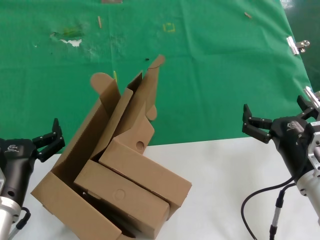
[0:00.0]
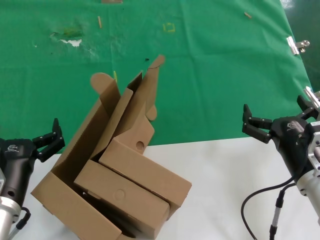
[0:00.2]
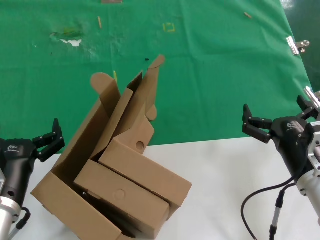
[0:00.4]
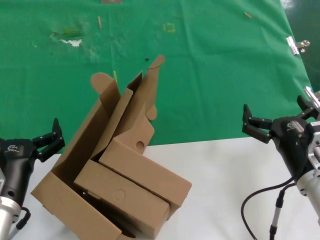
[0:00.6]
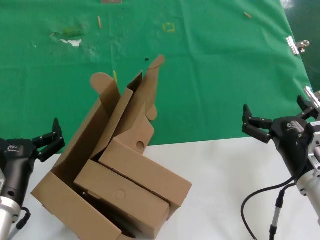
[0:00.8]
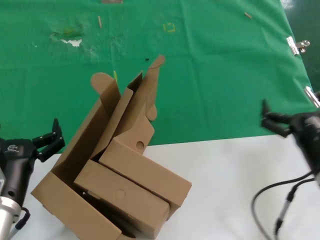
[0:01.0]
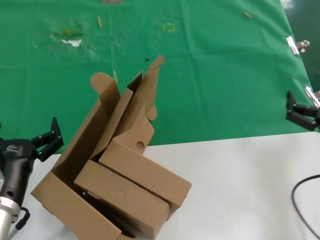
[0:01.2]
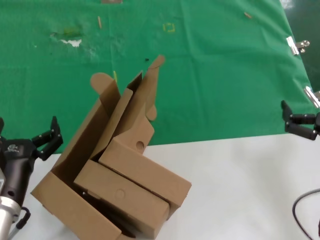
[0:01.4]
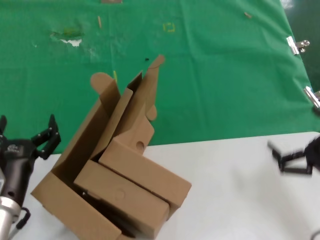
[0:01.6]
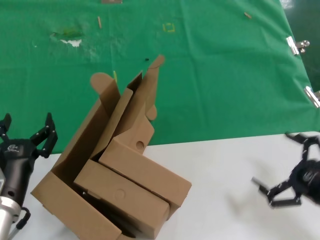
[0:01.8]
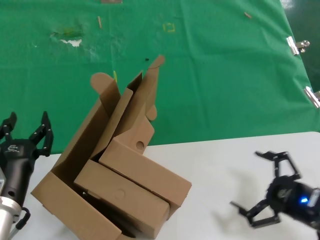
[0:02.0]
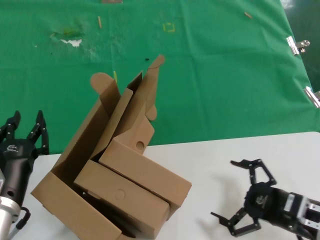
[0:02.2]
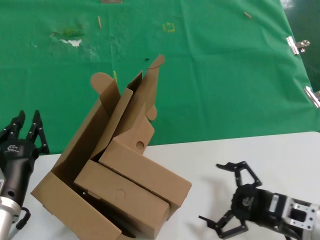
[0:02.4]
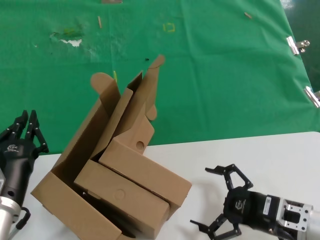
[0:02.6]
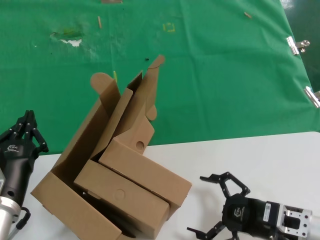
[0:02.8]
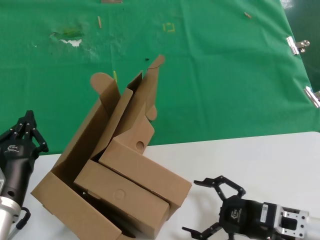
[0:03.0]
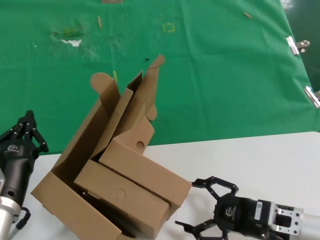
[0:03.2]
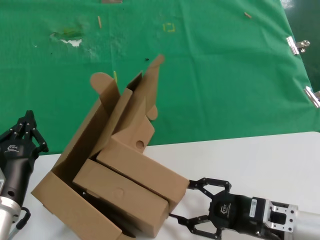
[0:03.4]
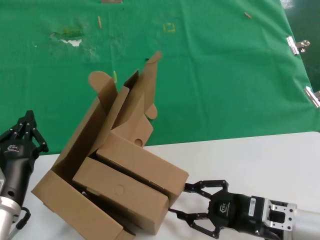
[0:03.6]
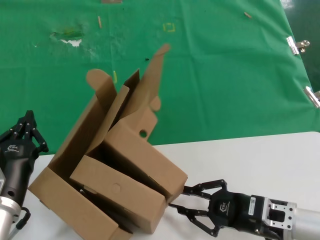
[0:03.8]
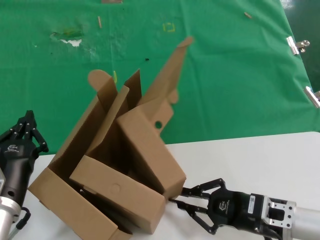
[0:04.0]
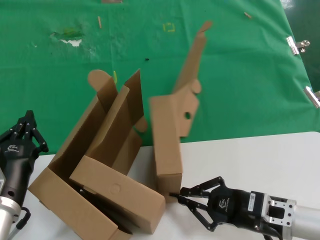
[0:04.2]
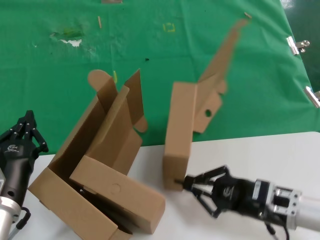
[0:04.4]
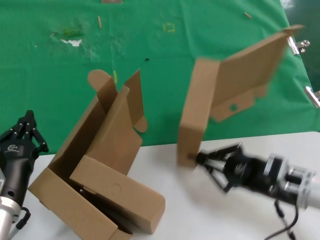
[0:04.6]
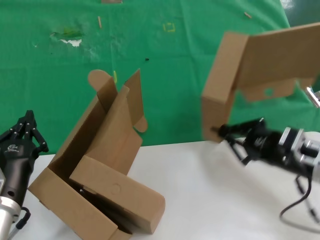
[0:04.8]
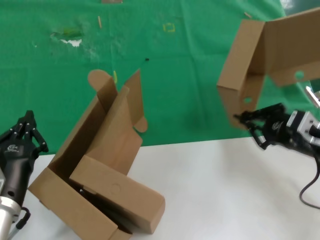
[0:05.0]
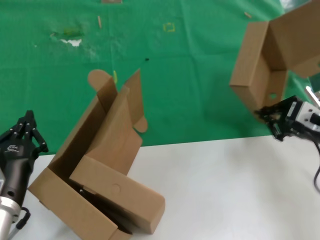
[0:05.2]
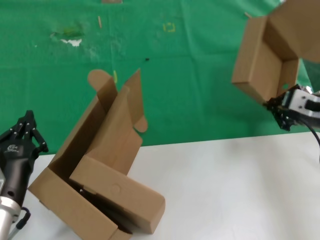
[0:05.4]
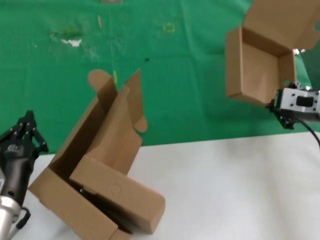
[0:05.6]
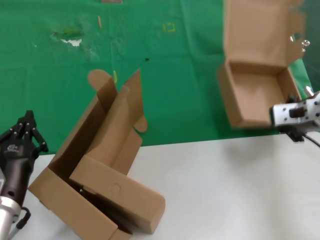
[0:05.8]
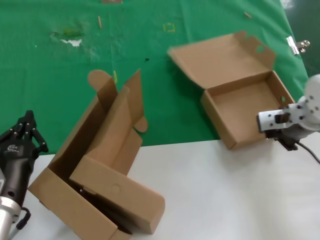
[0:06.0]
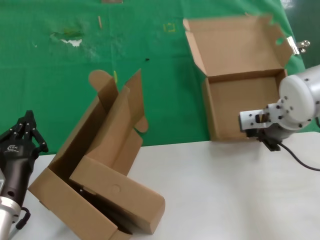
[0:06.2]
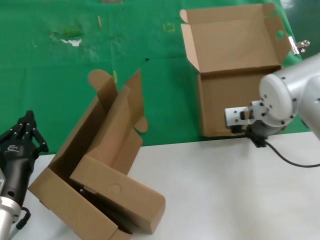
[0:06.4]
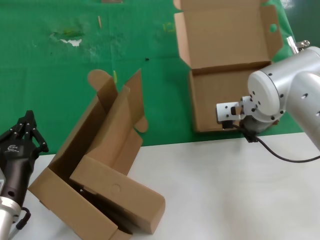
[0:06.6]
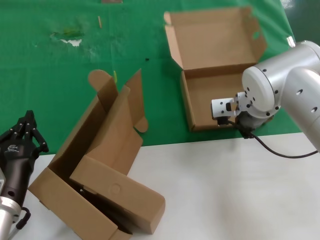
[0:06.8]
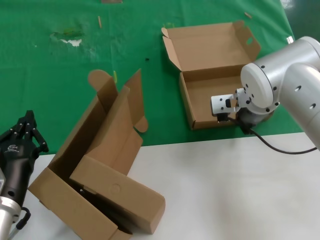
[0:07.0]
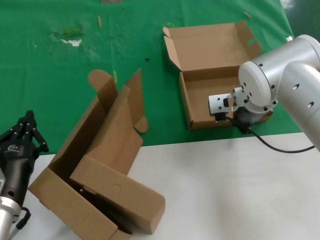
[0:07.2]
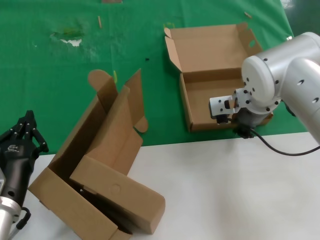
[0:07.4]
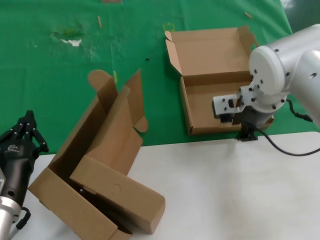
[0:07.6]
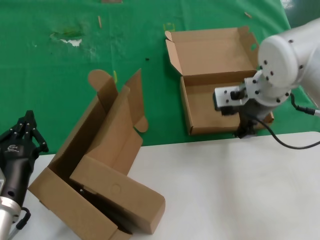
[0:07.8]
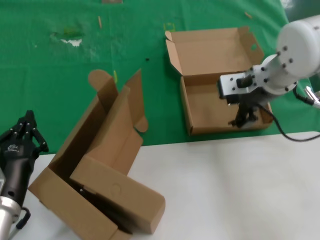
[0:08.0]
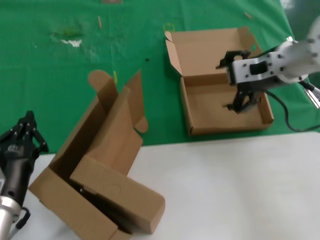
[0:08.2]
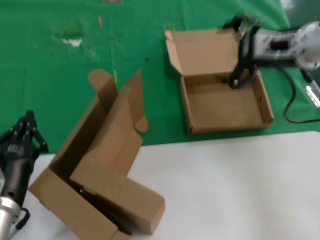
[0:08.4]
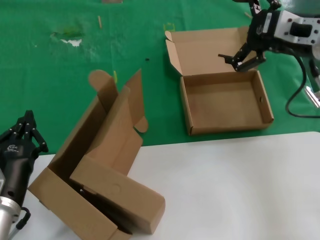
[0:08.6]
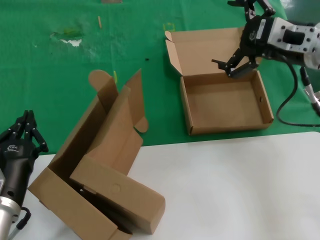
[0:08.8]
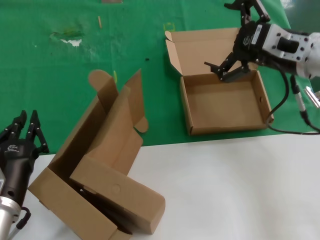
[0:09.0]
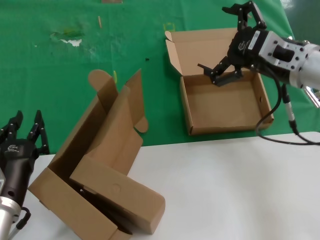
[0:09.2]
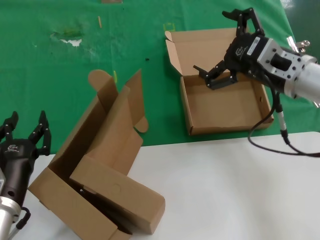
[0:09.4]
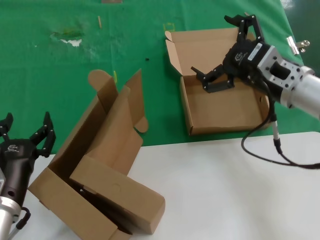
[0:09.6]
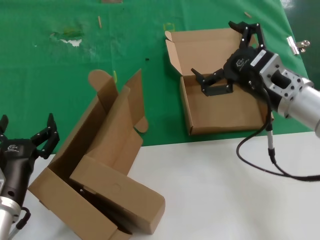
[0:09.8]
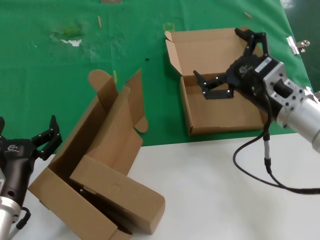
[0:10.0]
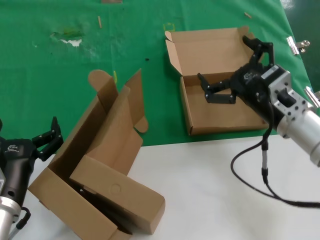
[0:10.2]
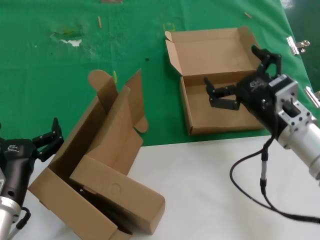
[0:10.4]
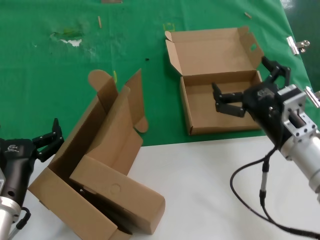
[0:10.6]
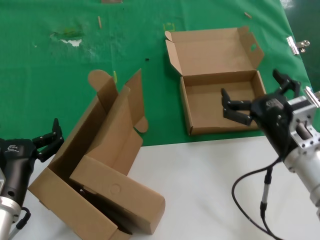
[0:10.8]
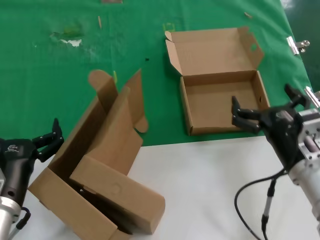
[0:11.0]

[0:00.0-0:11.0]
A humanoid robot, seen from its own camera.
Task of the whole recording: pick up the paper box and put it at the back.
Step, 0:00.0 to 0:04.2: Grasp the paper box.
Step, 0:04.4 to 0:07.4: Place the paper box on the table.
0:00.0 to 0:01.6: The right hand heads to the right, covering approximately 10 cm.
0:01.6 to 0:03.2: The right hand heads to the left and downward, covering some 10 cm.
0:03.2 to 0:04.8: The right hand is displaced upward and forward by some 10 cm.
0:04.8 to 0:06.2: The right hand goes roughly 15 cm forward, upward and to the left.
0:06.2 to 0:07.8: The right hand heads upward and to the left, covering about 10 cm.
0:07.8 to 0:09.4: The right hand goes some 10 cm to the right and backward.
0:09.4 to 0:11.0: The right hand shifts approximately 20 cm downward and backward.

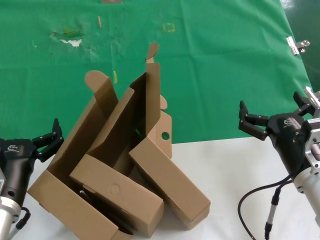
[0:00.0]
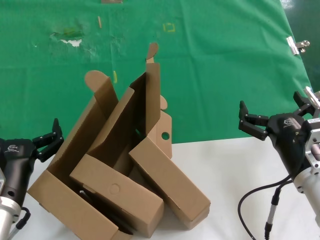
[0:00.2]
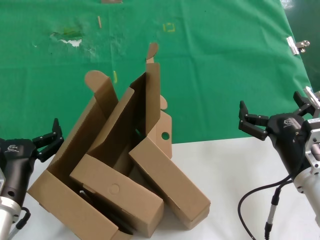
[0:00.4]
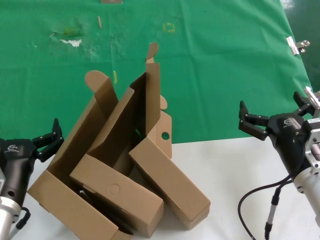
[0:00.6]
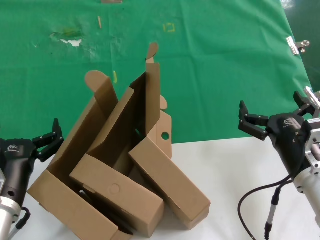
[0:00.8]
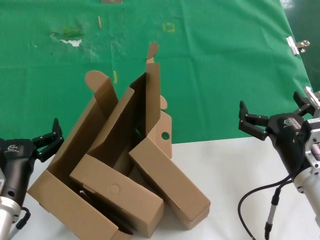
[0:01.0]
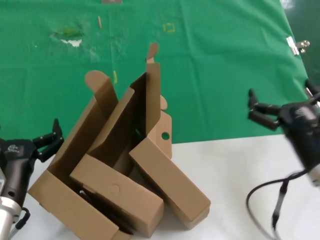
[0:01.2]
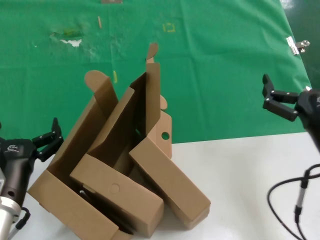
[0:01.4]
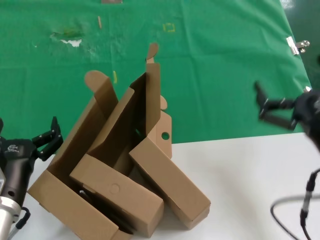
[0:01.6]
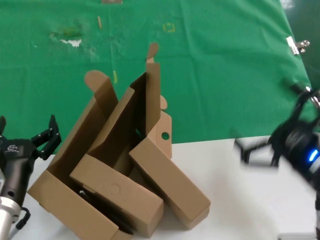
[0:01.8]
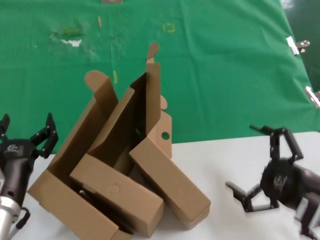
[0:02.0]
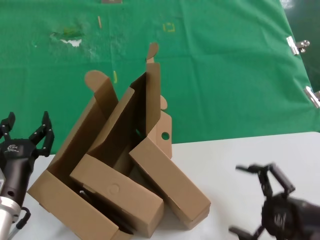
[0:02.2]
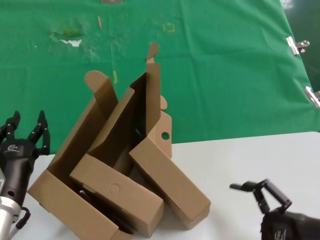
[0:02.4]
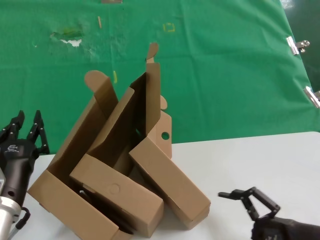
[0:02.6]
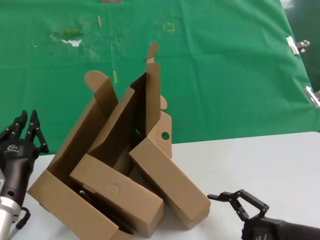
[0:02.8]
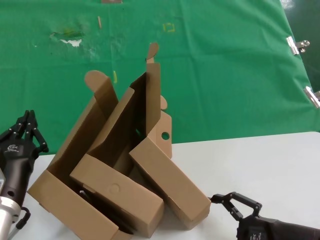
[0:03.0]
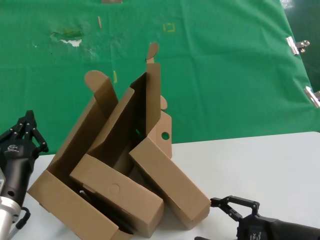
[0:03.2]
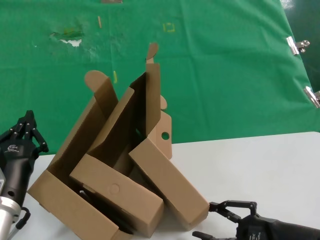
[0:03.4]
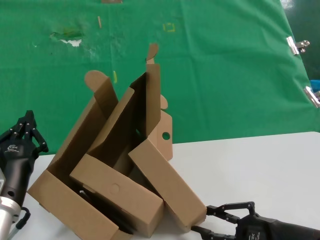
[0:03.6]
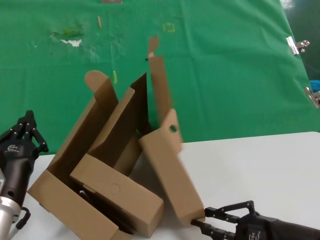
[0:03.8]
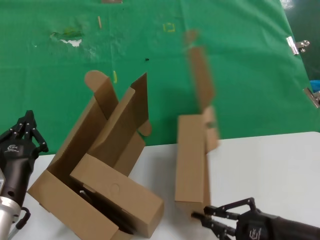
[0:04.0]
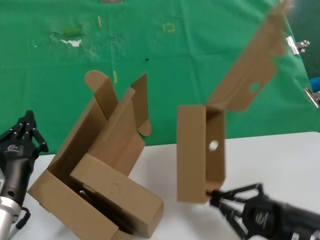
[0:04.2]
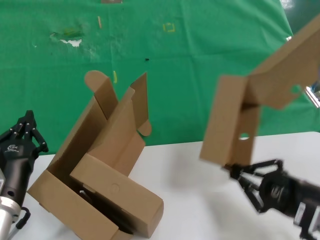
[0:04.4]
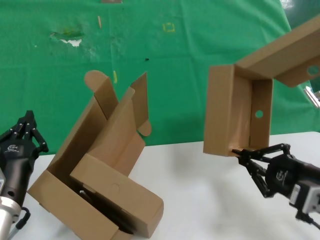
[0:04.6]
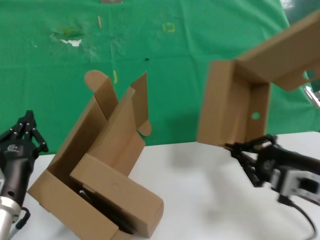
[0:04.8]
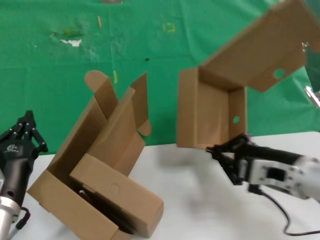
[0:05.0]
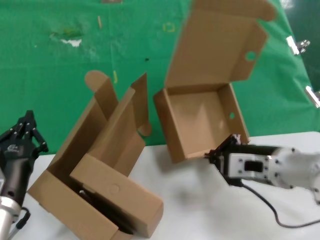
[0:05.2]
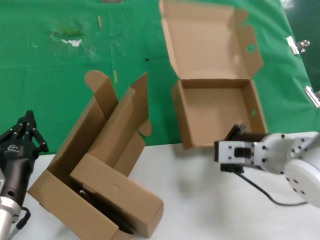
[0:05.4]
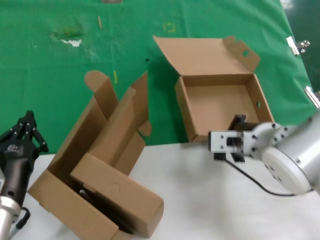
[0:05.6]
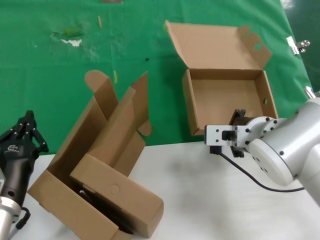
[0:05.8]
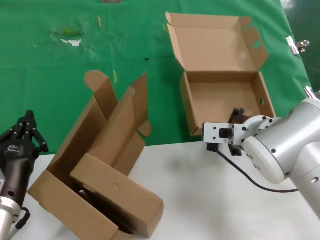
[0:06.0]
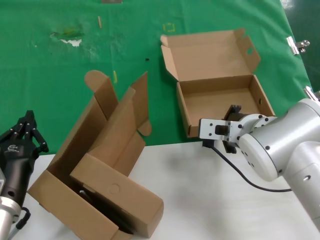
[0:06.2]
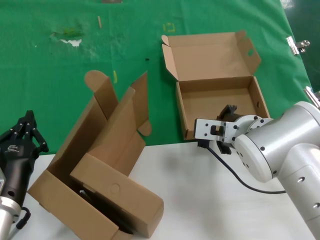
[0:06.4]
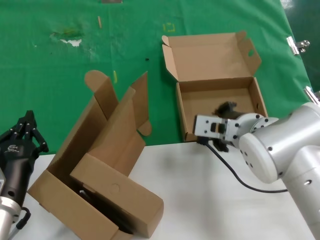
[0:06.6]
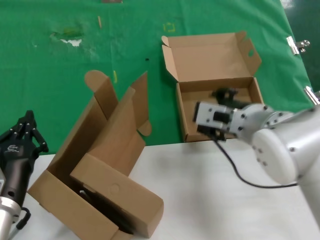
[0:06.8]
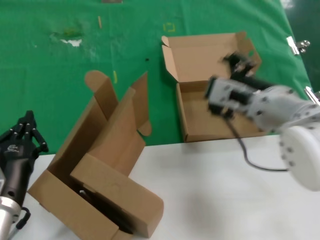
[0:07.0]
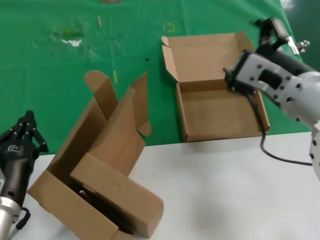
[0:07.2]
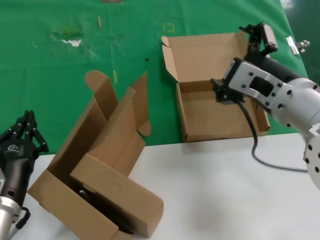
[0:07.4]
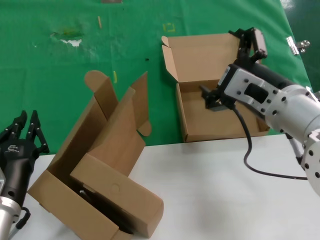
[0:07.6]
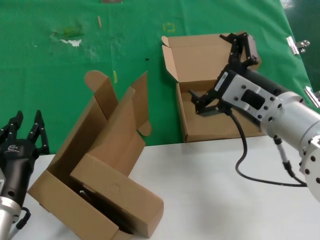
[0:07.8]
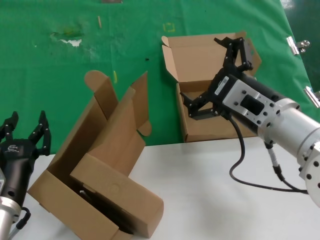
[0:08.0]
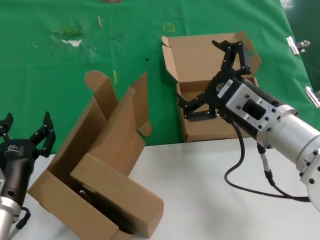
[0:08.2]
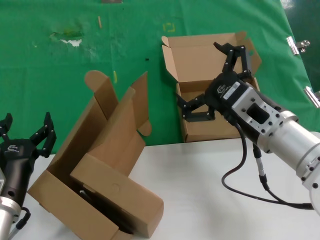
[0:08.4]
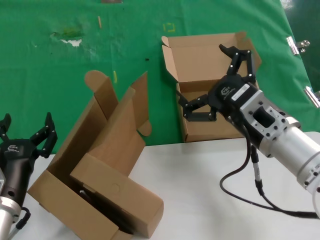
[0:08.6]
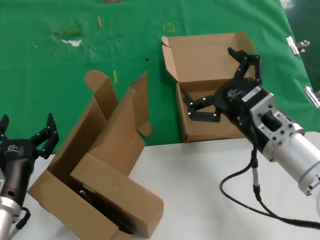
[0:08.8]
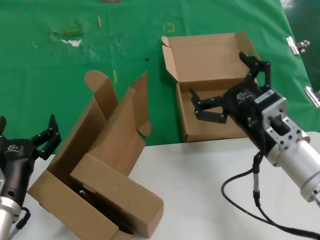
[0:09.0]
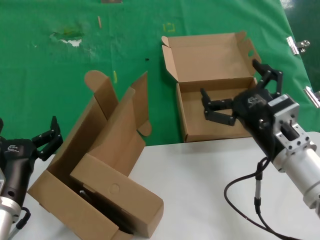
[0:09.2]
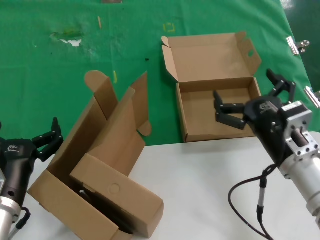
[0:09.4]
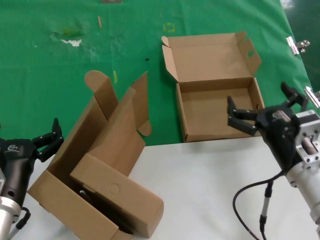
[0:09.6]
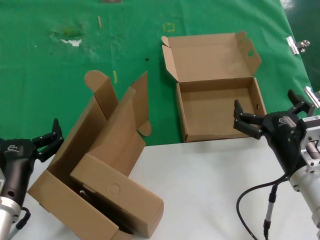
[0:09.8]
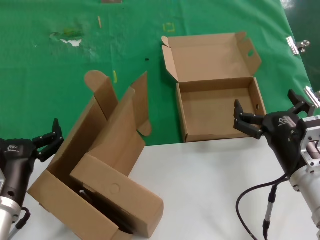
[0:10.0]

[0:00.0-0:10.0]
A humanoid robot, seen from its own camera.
Task of the whole recording: pick up the paper box and put it at the back.
Step, 0:00.0 to 0:04.0: Grasp the paper box.
Step, 0:04.2 to 0:06.6: Place the paper box on the table.
0:00.0 to 0:01.4: The right hand goes approximately 5 cm upward.
0:01.4 to 0:02.8: The right hand travels downward and backward by approximately 10 cm.
0:04.2 to 0:05.8: The right hand is displaced forward, to the left and upward by approximately 25 cm.
0:05.8 to 0:07.2: The right hand shifts approximately 10 cm upward and backward.
0:07.2 to 0:08.6: The right hand is displaced downward by roughly 10 cm.
0:08.6 to 0:10.0: The right hand moves downward, approximately 10 cm.
